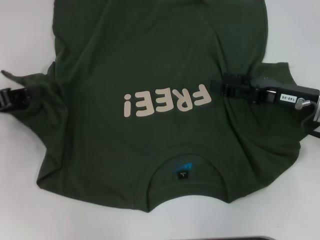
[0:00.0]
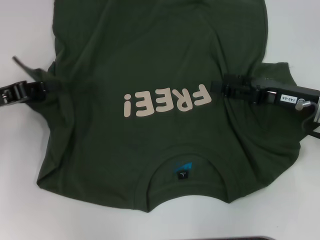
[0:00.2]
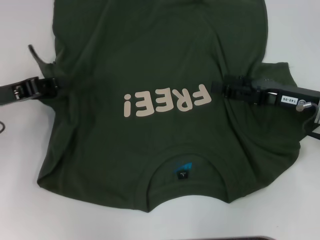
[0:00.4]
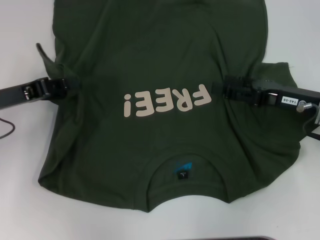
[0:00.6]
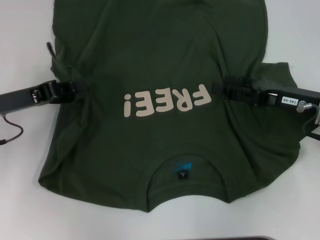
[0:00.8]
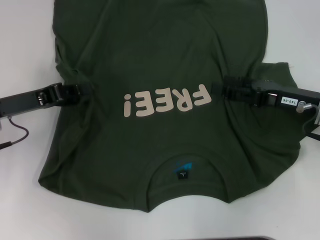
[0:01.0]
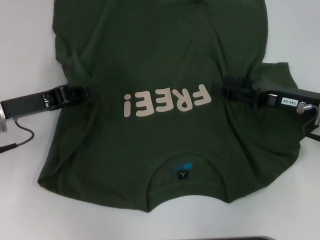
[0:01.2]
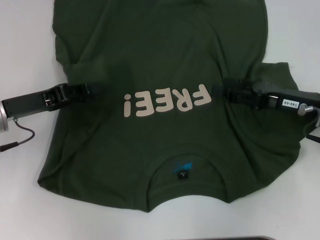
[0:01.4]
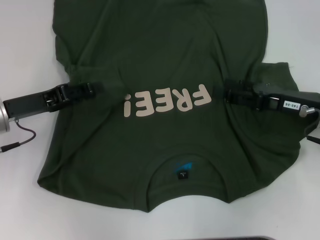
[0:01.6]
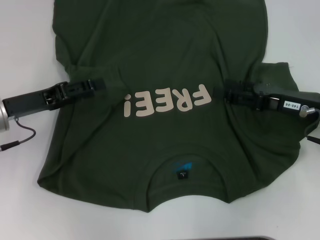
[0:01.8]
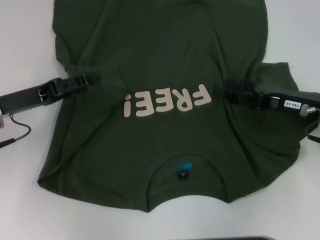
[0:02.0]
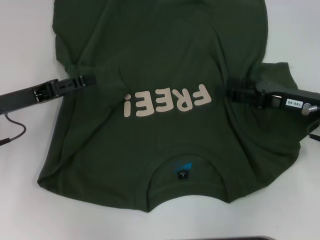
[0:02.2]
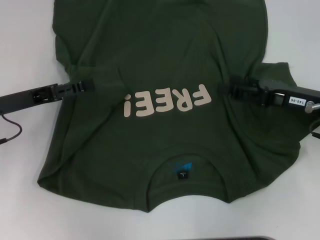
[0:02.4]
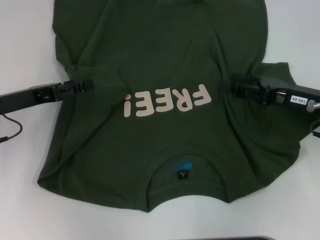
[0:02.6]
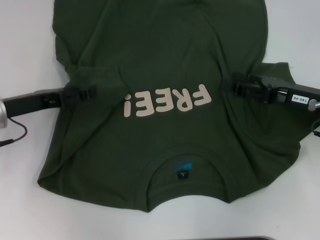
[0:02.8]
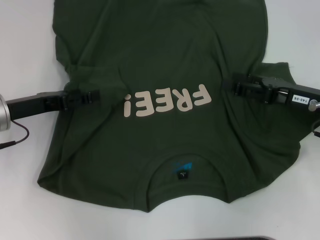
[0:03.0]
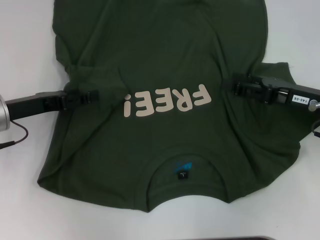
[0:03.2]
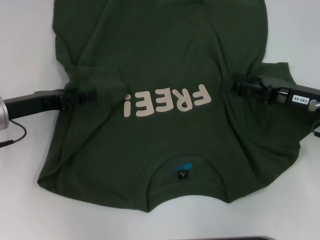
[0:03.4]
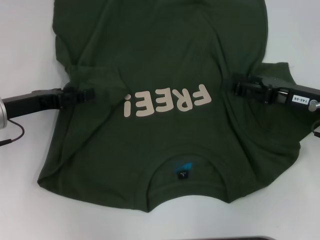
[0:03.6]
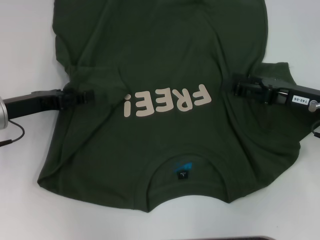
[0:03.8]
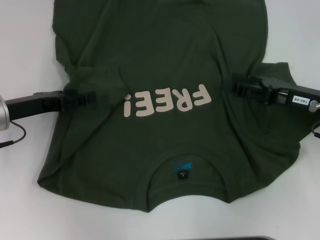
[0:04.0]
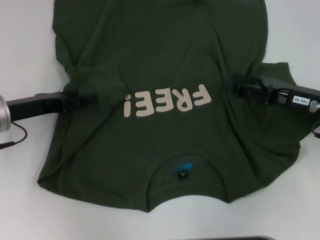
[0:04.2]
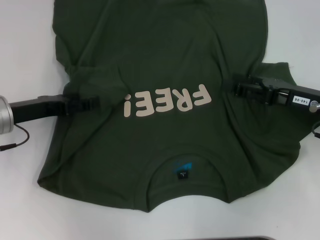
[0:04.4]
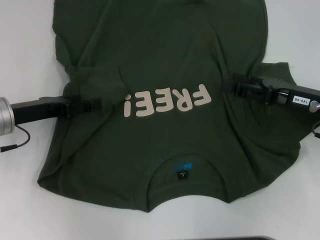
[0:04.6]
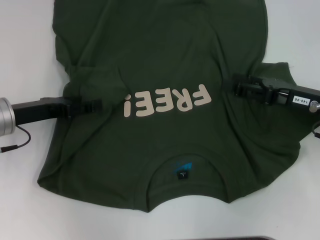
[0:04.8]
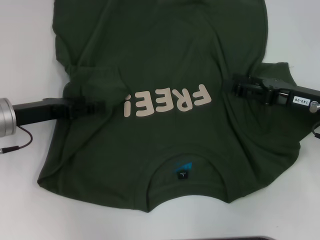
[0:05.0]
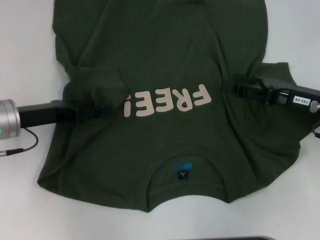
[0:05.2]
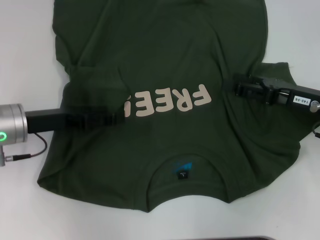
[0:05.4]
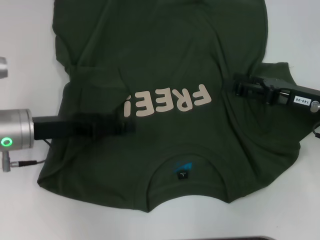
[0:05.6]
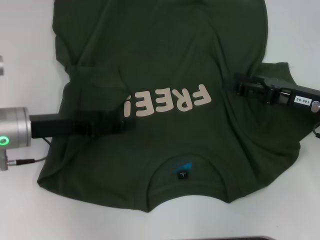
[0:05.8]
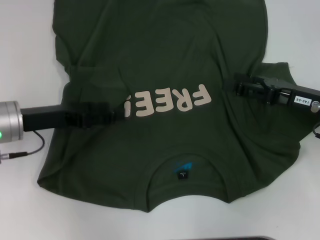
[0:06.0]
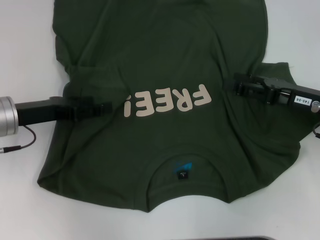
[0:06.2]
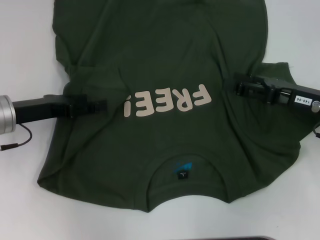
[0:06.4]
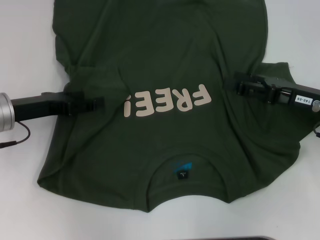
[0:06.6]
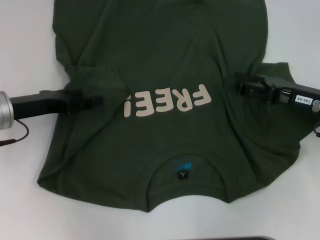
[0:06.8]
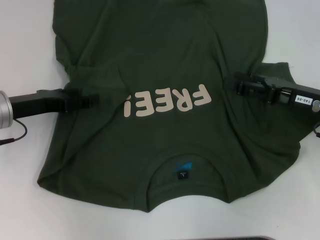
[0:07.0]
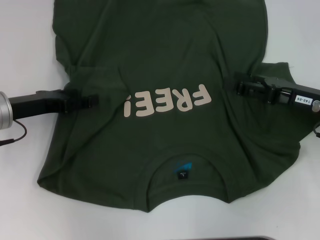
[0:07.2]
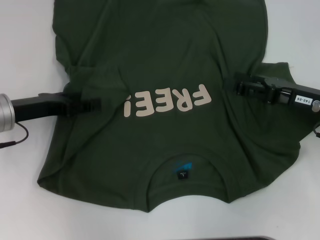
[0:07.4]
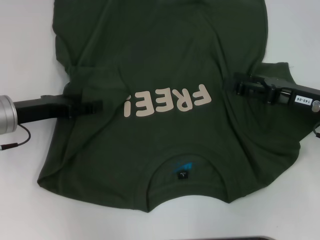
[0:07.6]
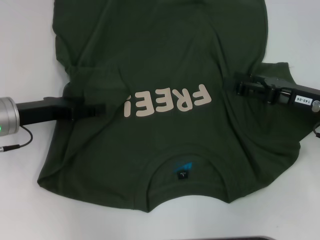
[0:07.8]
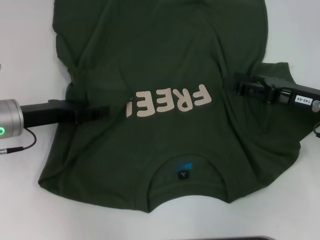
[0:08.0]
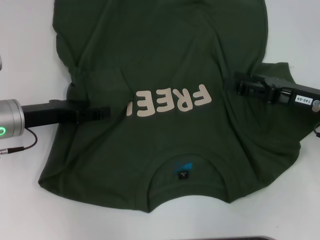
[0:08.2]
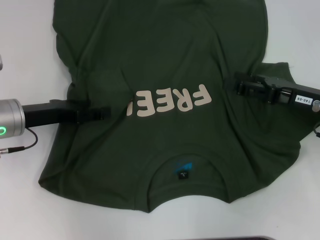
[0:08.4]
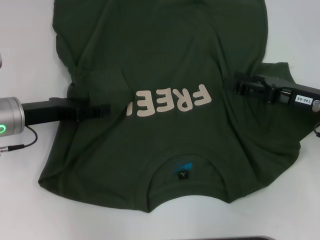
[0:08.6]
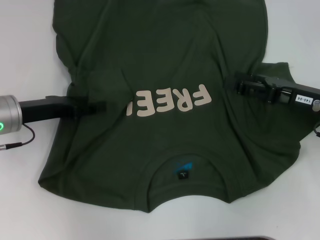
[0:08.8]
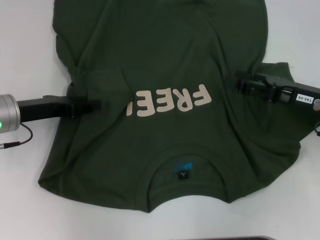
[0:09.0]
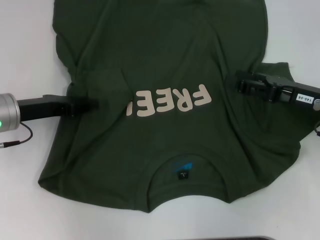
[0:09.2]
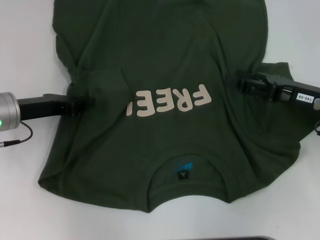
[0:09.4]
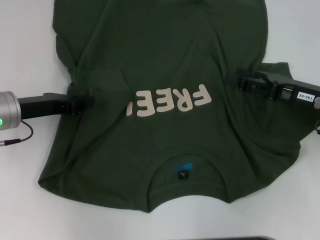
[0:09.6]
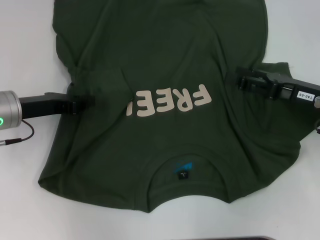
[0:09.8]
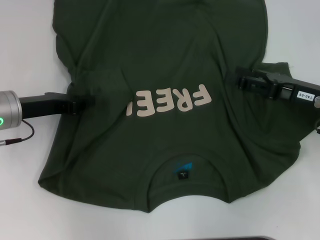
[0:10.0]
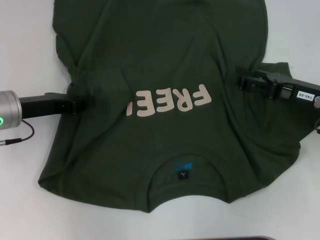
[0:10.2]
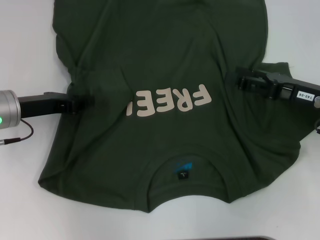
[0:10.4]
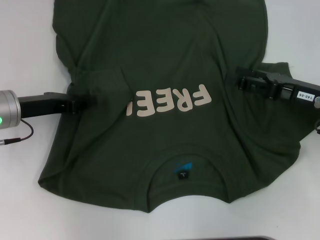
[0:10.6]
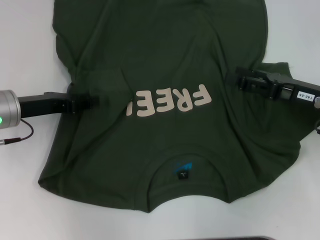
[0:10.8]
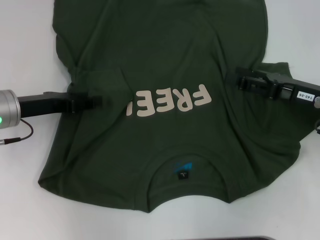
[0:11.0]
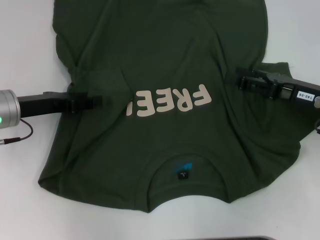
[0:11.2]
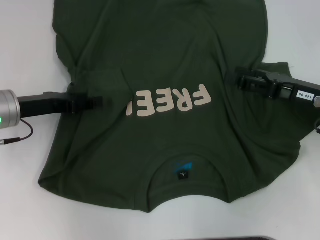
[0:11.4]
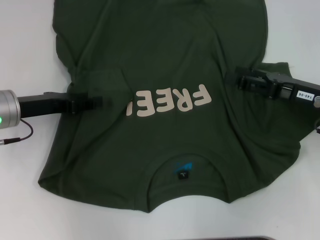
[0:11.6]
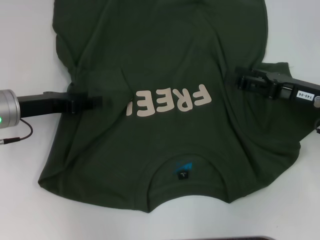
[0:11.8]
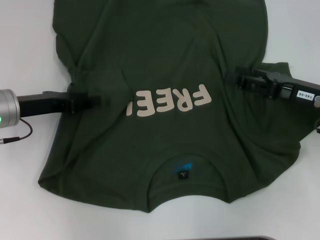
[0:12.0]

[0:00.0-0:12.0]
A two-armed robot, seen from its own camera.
0:00.0 to 0:01.6: The left gripper heads to the right, covering roughly 5 cm.
0:01.6 to 0:03.0: The left gripper opens its fingers.
0:03.0 to 0:04.4: Neither gripper changes place.
0:04.4 to 0:07.6: The grippers move only a little.
0:07.6 to 0:09.0: Both grippers stay about where they are.
0:09.0 to 0:10.4: The left gripper closes up.

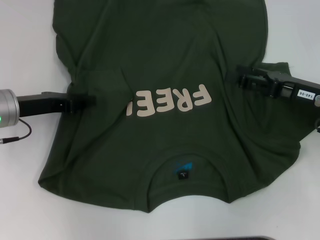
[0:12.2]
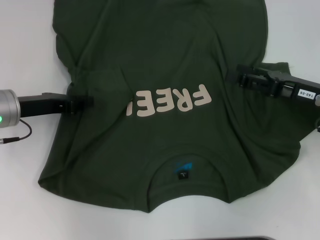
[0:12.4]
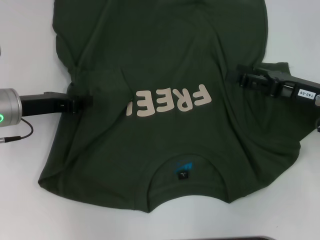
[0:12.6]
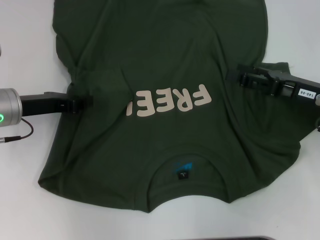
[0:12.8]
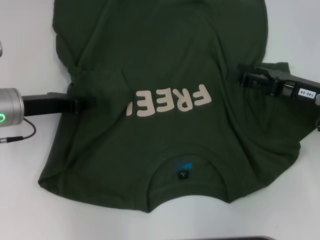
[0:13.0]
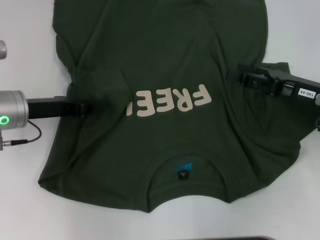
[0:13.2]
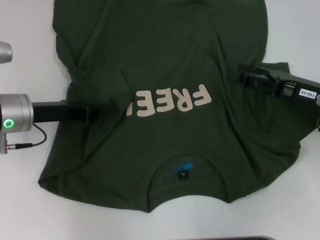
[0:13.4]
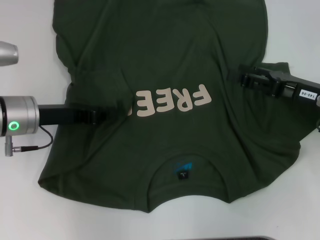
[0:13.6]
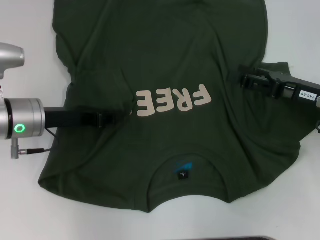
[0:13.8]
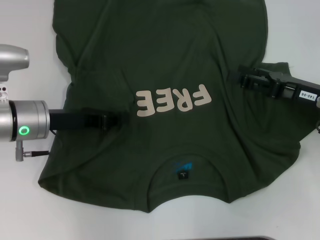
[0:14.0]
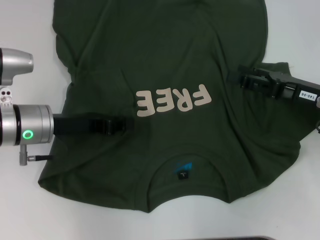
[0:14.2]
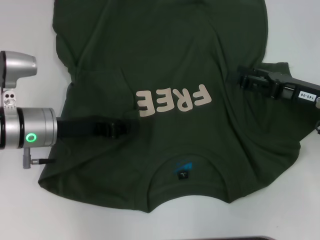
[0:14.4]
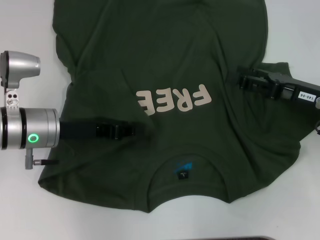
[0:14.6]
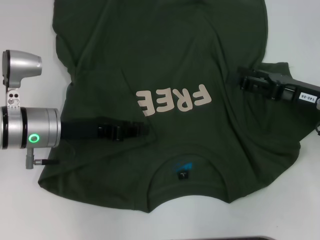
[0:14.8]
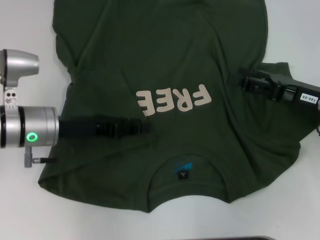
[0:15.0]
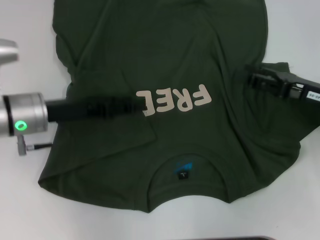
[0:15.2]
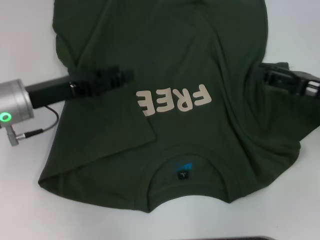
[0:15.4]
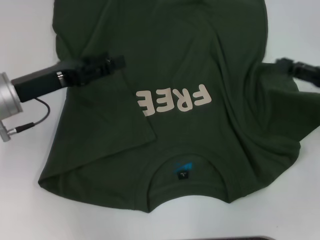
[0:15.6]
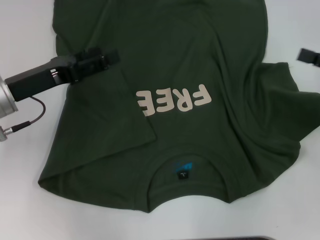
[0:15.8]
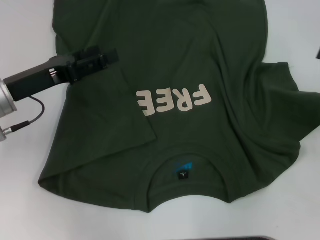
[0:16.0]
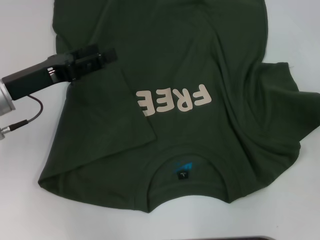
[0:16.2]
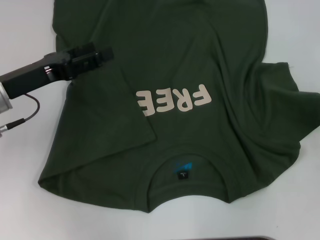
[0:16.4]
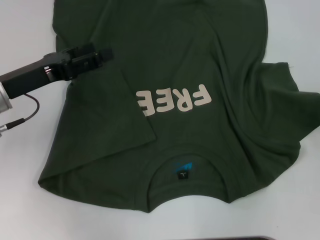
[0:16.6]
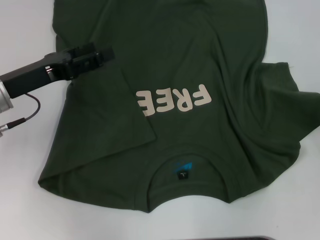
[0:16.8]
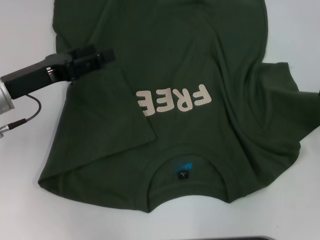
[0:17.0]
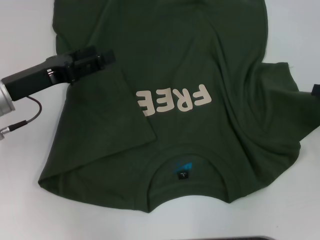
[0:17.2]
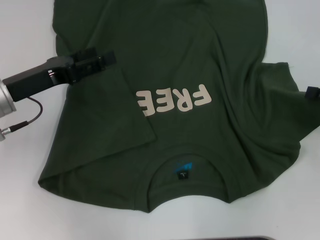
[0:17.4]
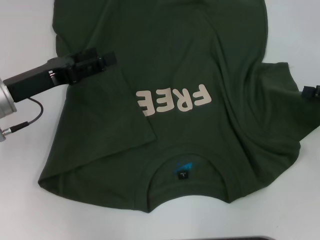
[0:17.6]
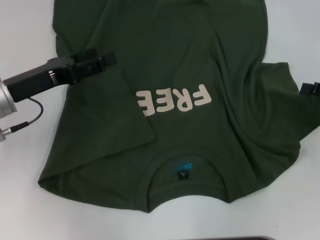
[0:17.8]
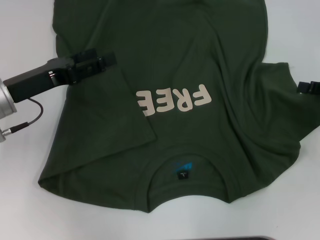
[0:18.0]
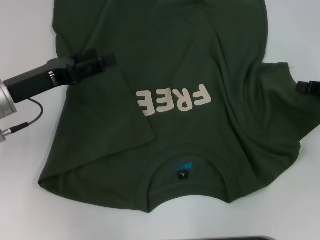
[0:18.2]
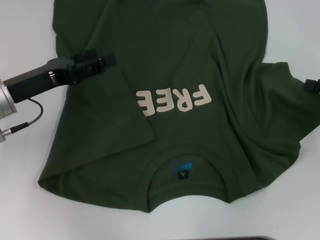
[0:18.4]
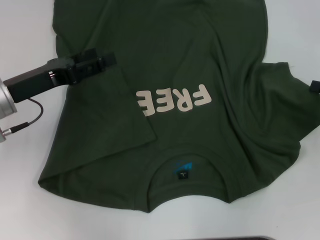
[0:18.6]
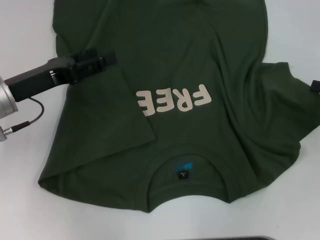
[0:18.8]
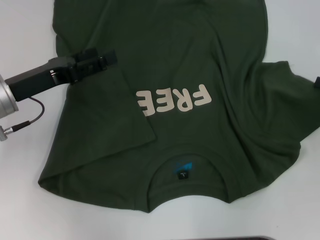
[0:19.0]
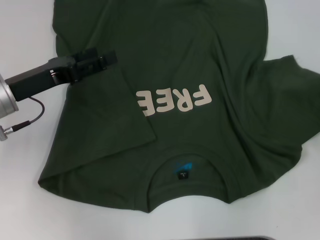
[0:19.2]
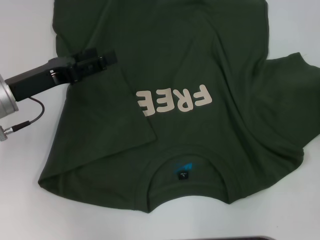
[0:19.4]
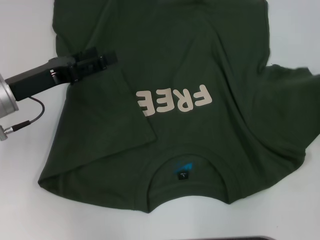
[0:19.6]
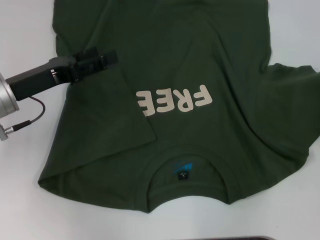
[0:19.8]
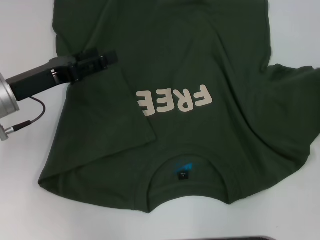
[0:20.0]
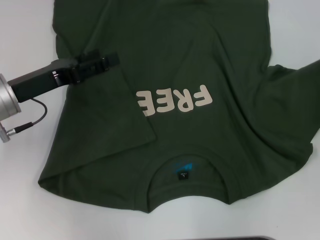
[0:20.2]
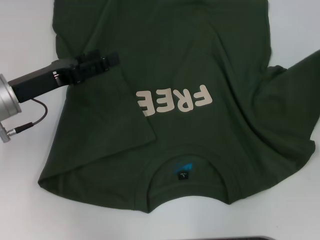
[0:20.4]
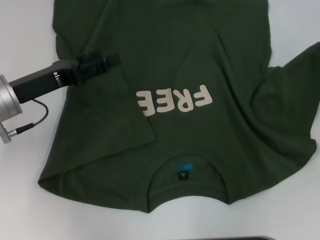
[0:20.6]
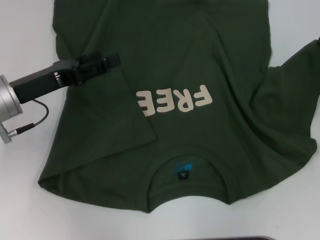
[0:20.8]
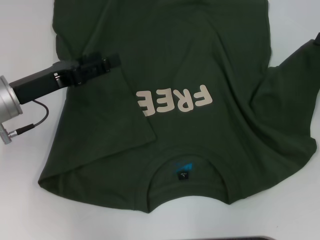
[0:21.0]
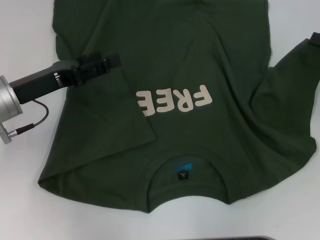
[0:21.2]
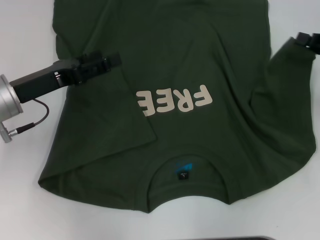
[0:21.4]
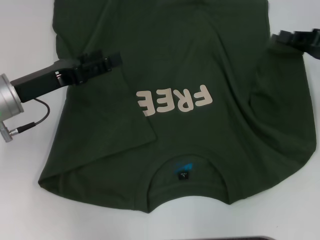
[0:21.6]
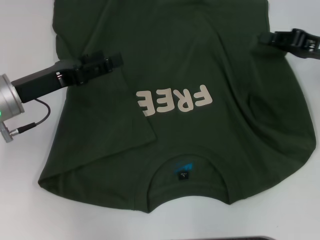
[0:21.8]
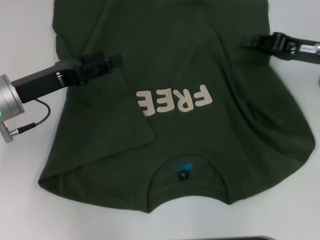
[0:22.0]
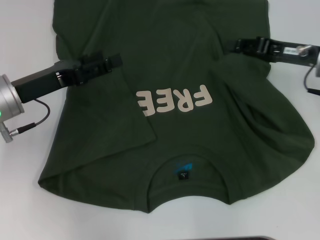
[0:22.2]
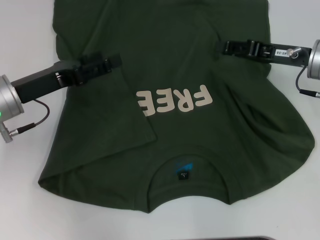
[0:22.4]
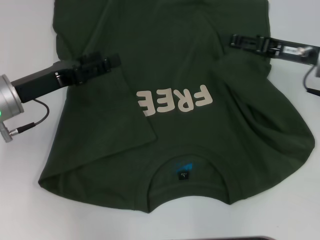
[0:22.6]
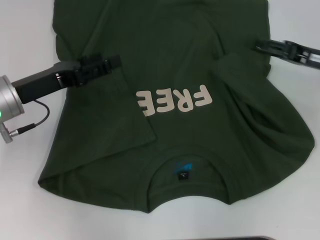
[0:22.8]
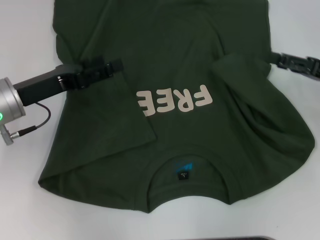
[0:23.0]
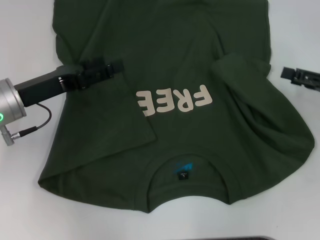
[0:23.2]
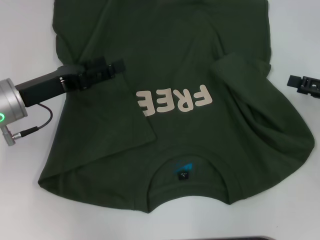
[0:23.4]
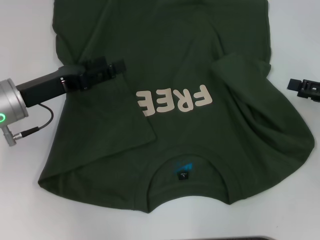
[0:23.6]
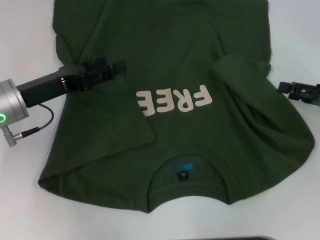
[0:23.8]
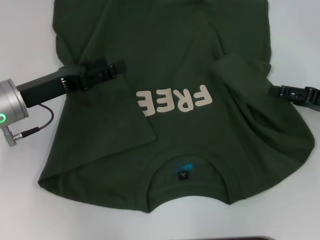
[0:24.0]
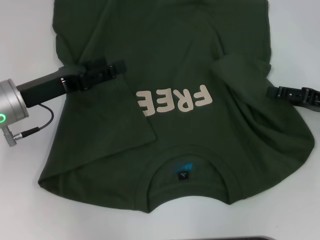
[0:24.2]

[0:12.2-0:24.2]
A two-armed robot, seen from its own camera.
Step, 0:12.2 to 0:15.0: Fold the bottom left sleeve with your left hand.
0:12.2 to 0:13.8: The left gripper closes its fingers.
0:13.8 to 0:15.2: The left gripper opens its fingers.
0:15.2 to 0:16.6: The right gripper moves to the right, roughly 15 cm. The left gripper opens its fingers.
0:18.2 to 0:19.8: The right gripper changes place by approximately 5 cm, and closes up.
0:19.8 to 0:21.2: The right gripper moves approximately 5 cm.
0:21.2 to 0:22.6: The right gripper heads to the left, covering roughly 10 cm, and opens its fingers.
0:22.6 to 0:24.2: The right gripper moves to the right and backward, roughly 10 cm.
